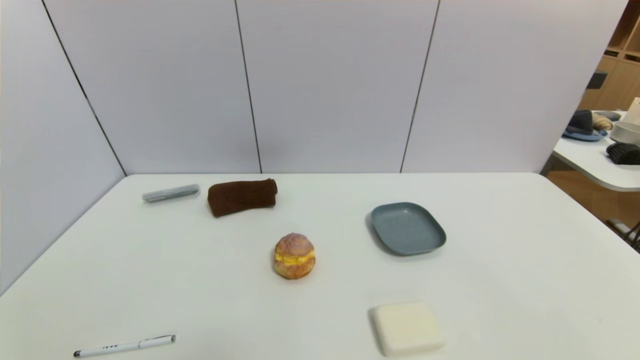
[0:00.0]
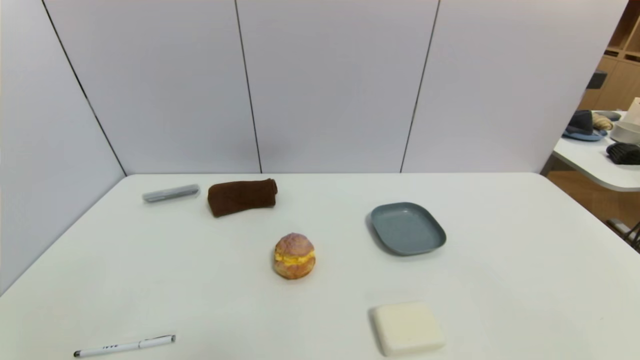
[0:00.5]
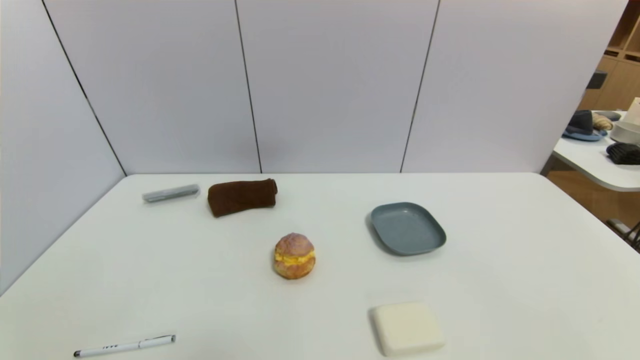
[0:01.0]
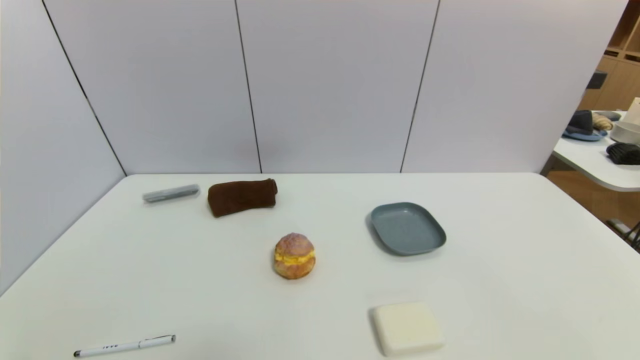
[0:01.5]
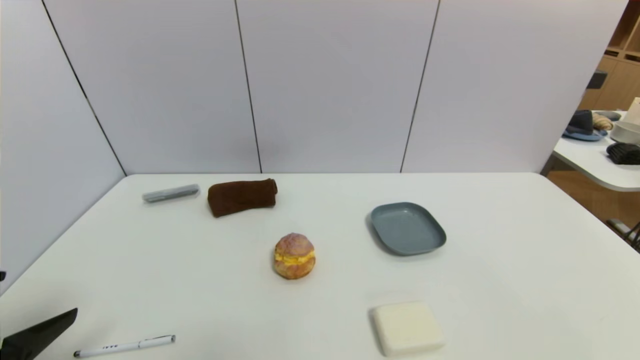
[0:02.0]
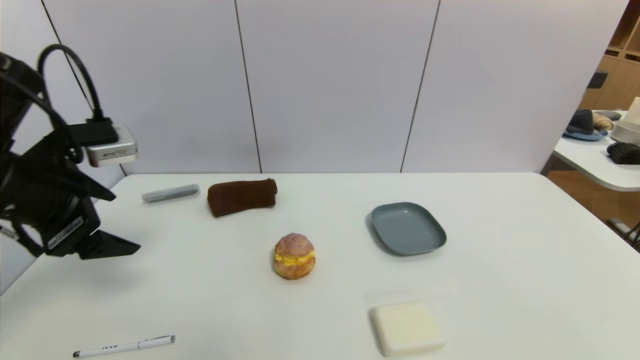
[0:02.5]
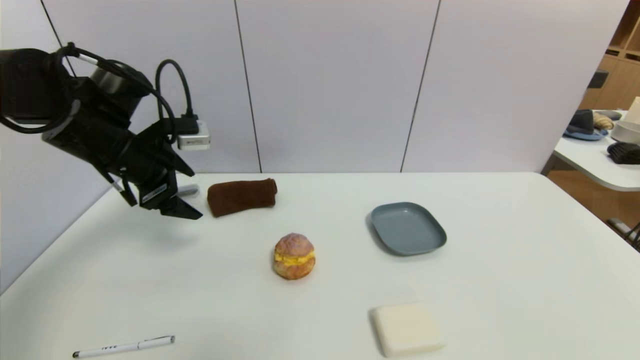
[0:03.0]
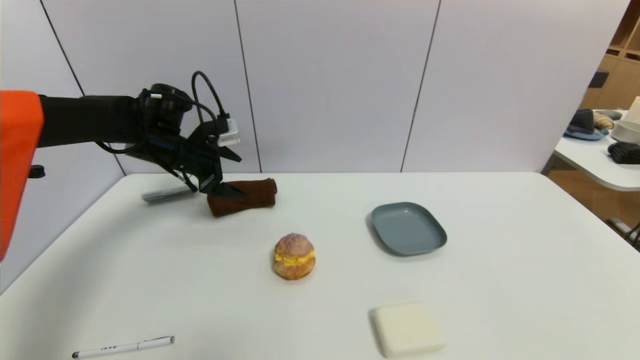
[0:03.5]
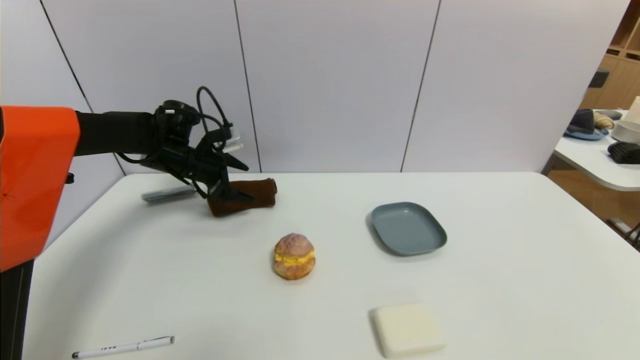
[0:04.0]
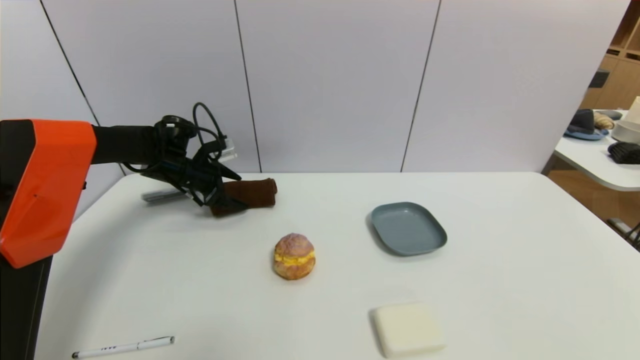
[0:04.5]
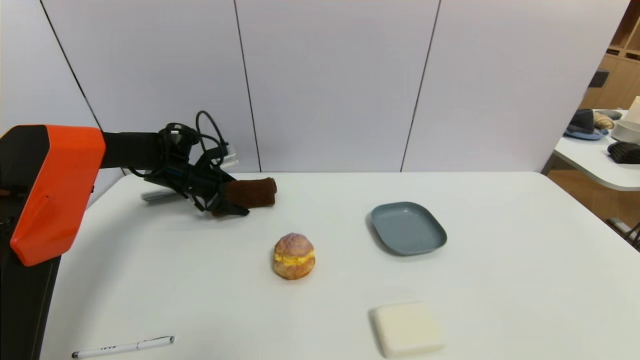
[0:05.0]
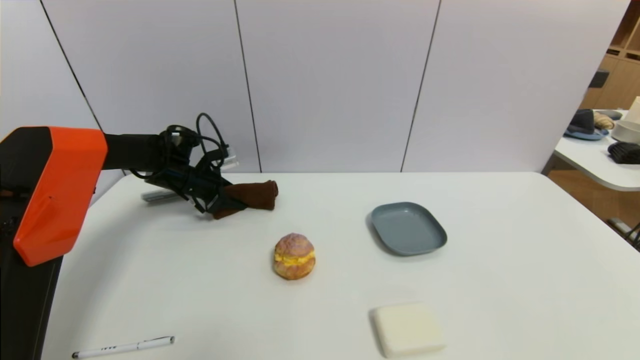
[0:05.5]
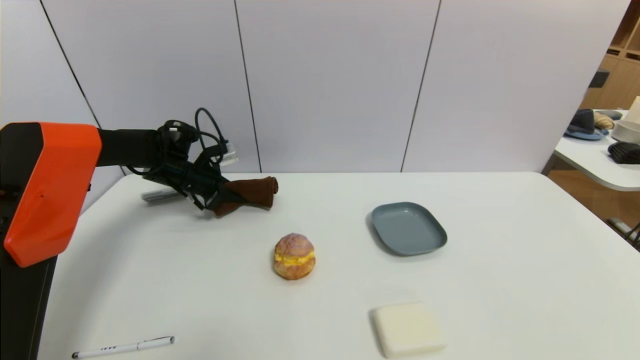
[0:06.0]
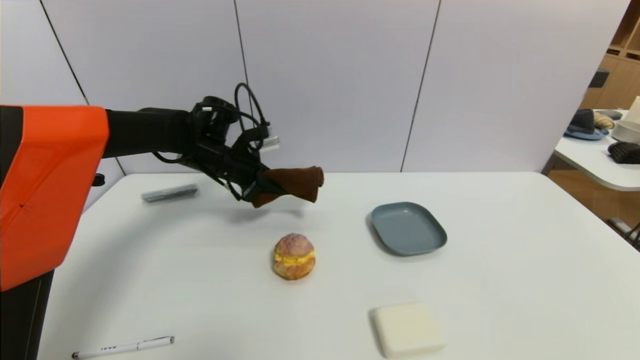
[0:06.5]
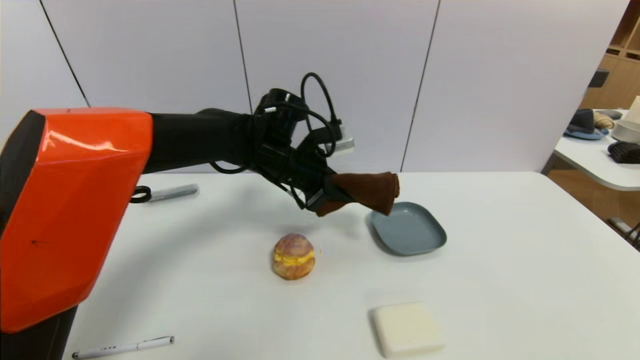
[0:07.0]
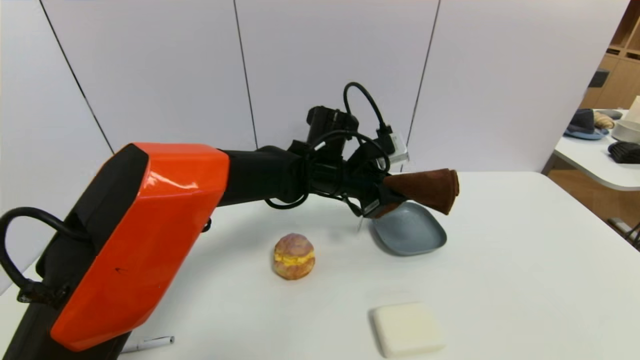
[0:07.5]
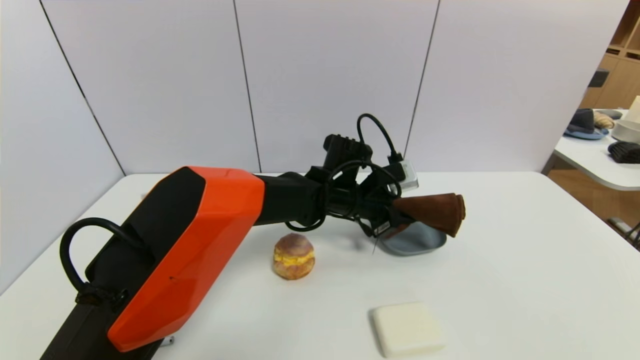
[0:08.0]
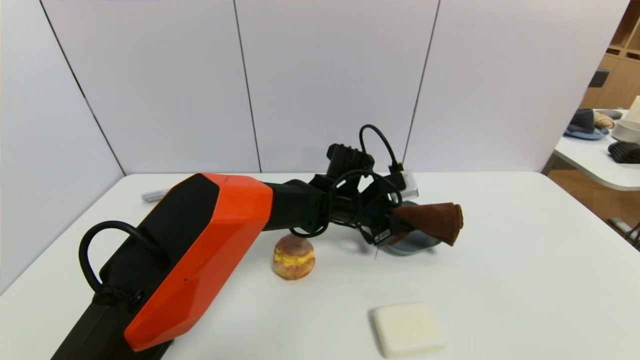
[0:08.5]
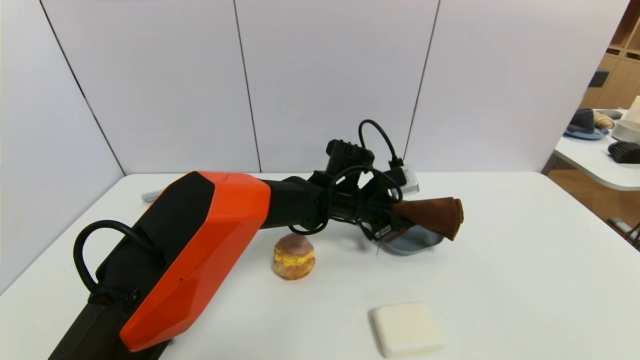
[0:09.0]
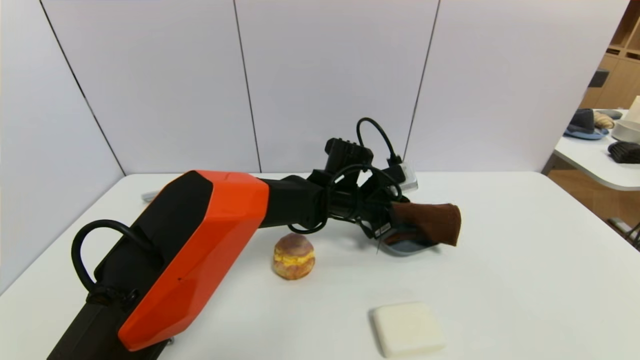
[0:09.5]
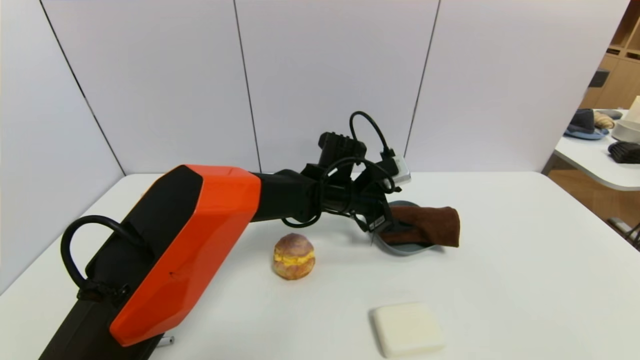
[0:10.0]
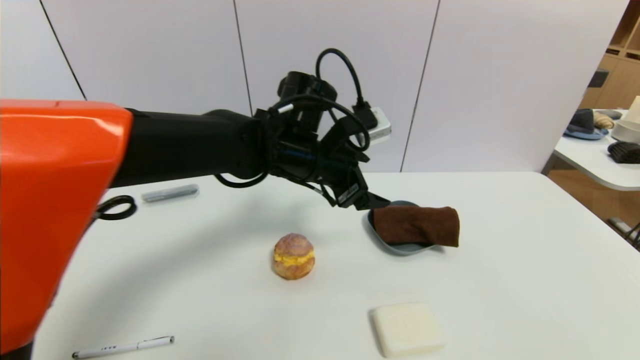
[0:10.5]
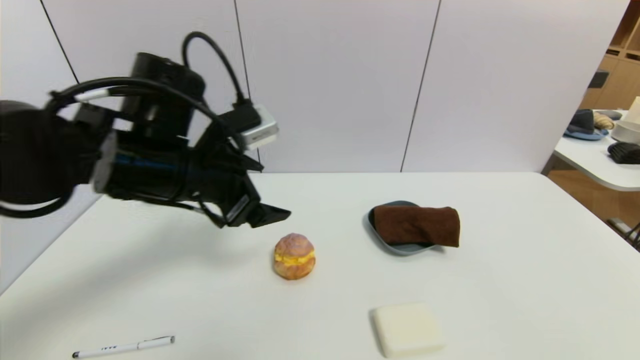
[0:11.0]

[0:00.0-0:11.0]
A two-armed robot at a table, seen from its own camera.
Task of the whole recording: use a gripper to pick the target object and place on the dish.
Step, 0:00.0 to 0:05.5: Grasp the brown towel with the left gripper.
Step, 0:06.0 to 0:10.0: Place the brown towel on the dish with the left gripper.
0:00.0 to 0:02.0: The left gripper heads upward and forward, covering about 15 cm.
0:02.0 to 0:03.5: The left gripper travels forward by roughly 35 cm.
0:03.5 to 0:05.5: The left gripper travels downward by roughly 10 cm, and closes up.
0:05.5 to 0:07.5: The left gripper shifts approximately 30 cm to the right.
0:07.5 to 0:09.0: The left gripper heads downward, covering about 5 cm.
0:09.0 to 0:11.0: The left gripper moves to the left, backward and upward, some 30 cm, and opens.

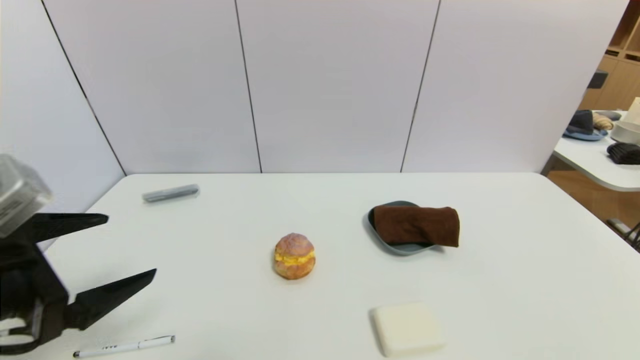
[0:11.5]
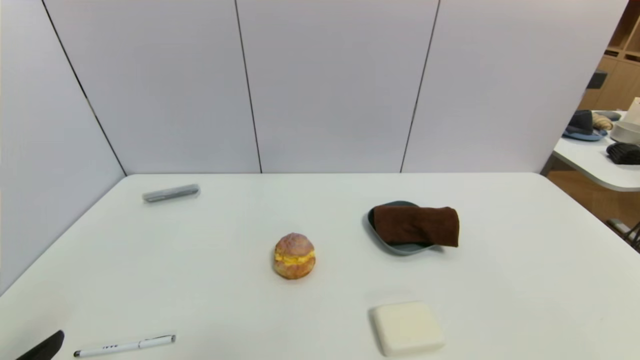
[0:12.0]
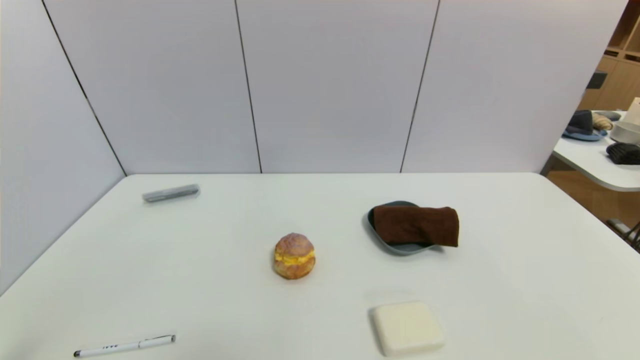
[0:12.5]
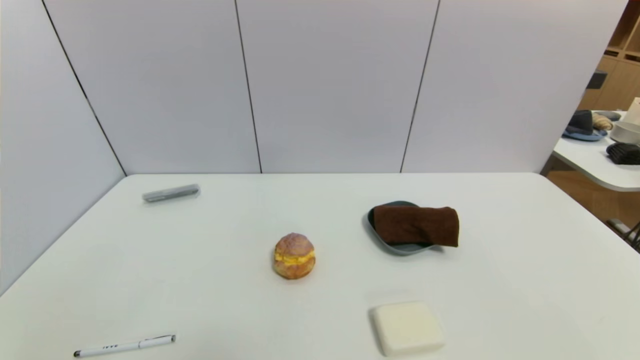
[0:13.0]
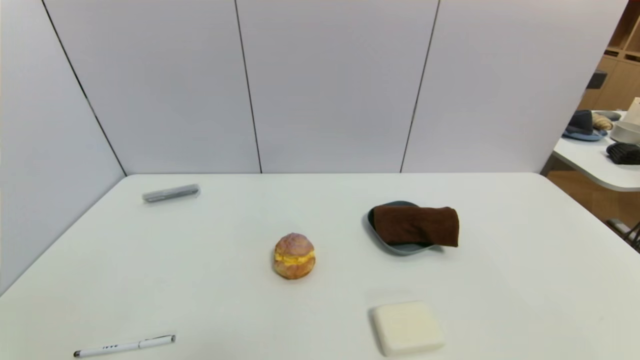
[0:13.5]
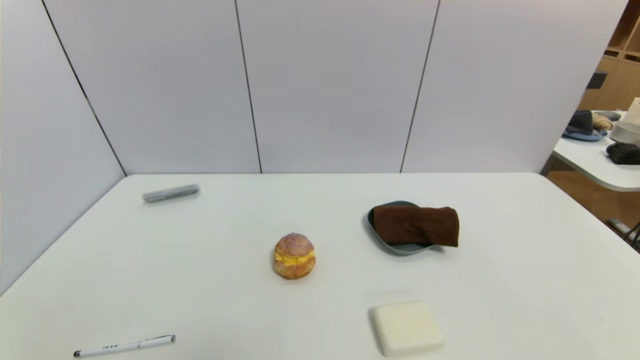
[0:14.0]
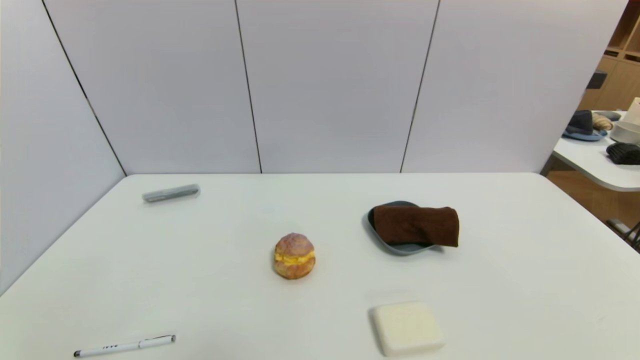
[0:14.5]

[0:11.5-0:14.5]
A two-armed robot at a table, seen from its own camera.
Task of the whole recording: use a gripper to pick the target object and place on the dish.
0:11.5 to 0:13.0: The left gripper moves downward and backward, about 20 cm.
